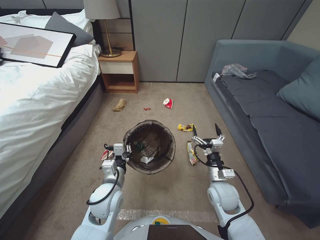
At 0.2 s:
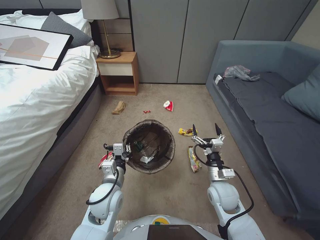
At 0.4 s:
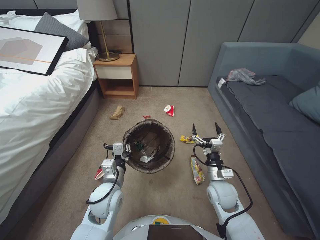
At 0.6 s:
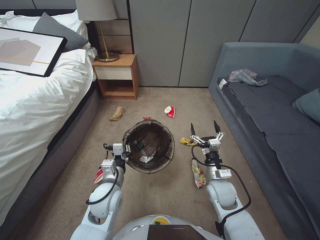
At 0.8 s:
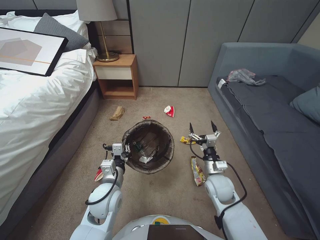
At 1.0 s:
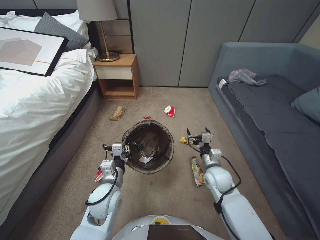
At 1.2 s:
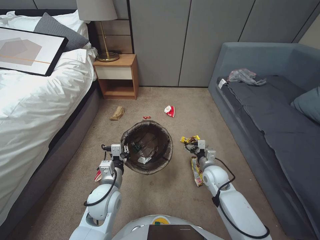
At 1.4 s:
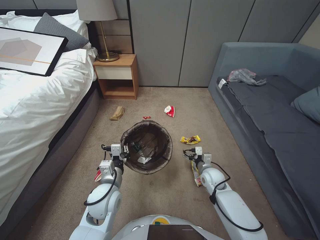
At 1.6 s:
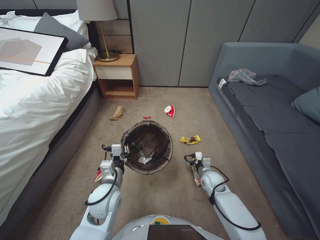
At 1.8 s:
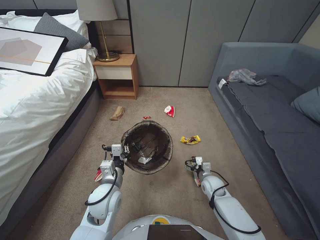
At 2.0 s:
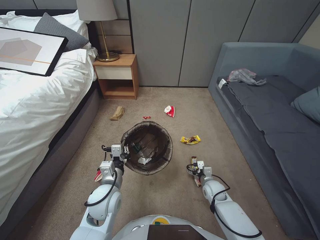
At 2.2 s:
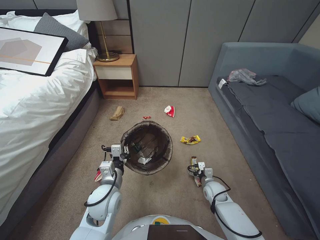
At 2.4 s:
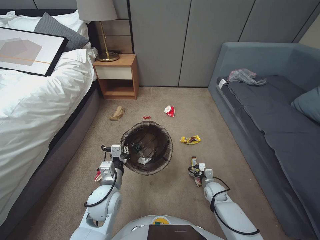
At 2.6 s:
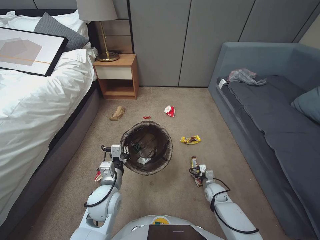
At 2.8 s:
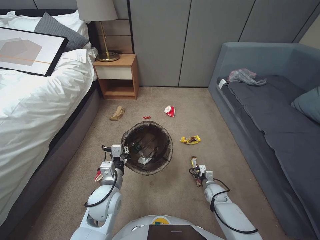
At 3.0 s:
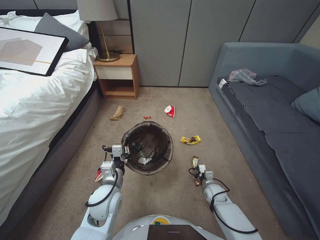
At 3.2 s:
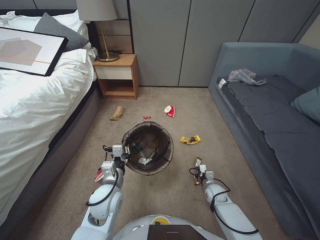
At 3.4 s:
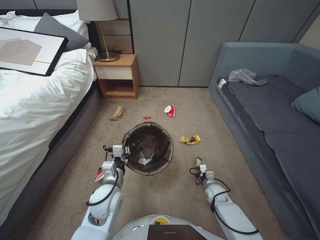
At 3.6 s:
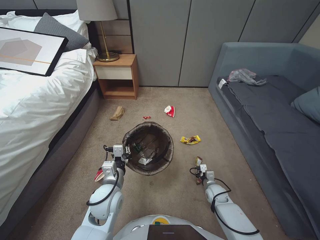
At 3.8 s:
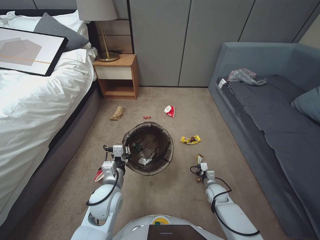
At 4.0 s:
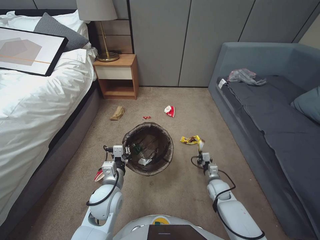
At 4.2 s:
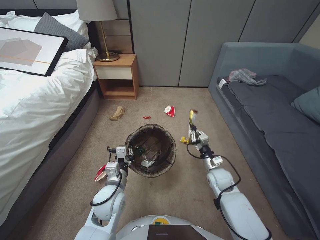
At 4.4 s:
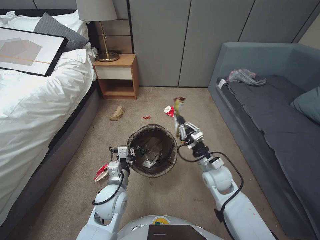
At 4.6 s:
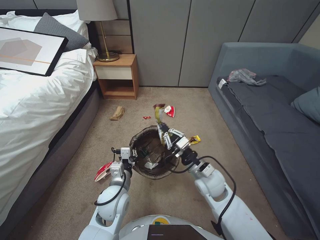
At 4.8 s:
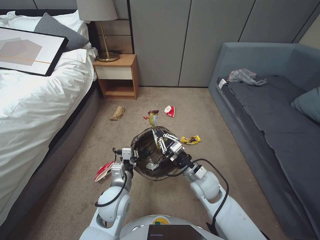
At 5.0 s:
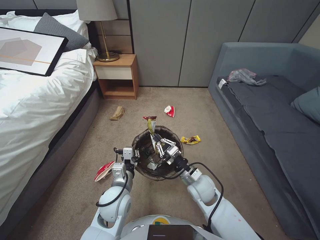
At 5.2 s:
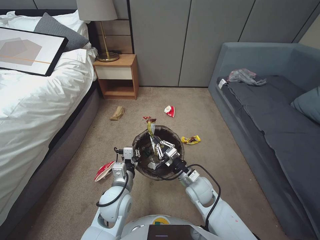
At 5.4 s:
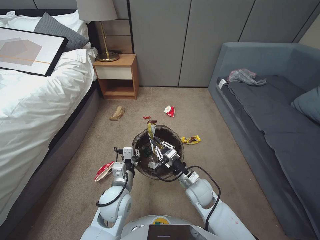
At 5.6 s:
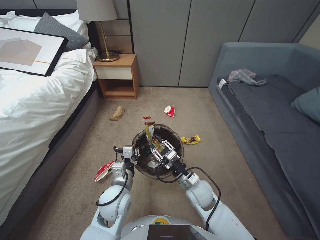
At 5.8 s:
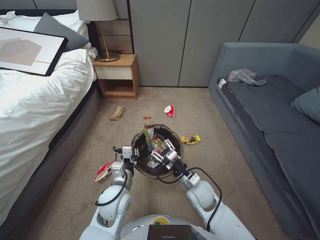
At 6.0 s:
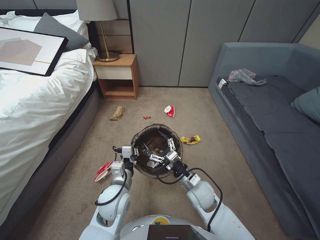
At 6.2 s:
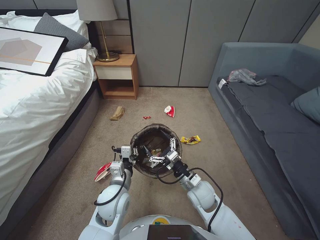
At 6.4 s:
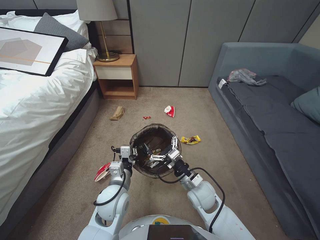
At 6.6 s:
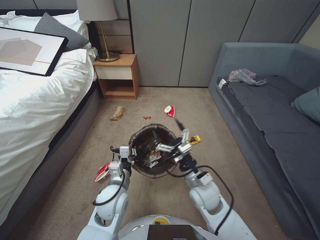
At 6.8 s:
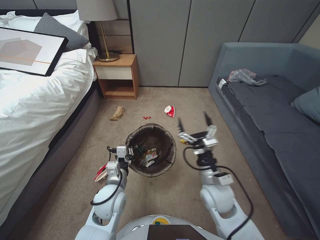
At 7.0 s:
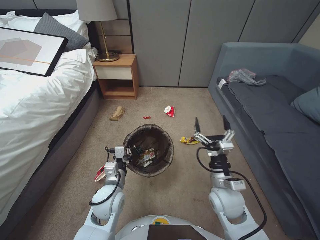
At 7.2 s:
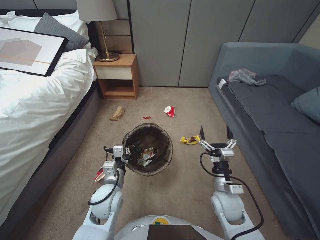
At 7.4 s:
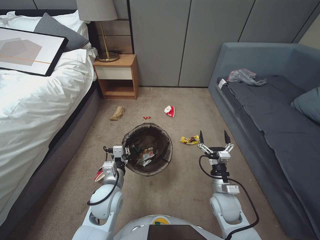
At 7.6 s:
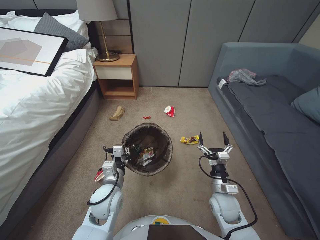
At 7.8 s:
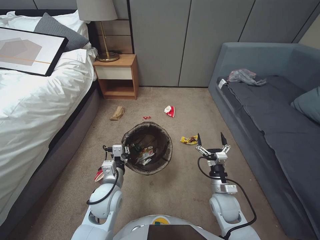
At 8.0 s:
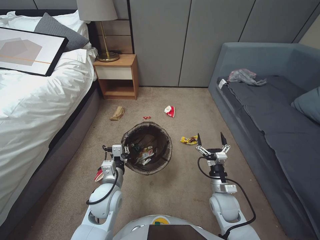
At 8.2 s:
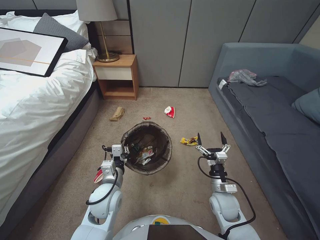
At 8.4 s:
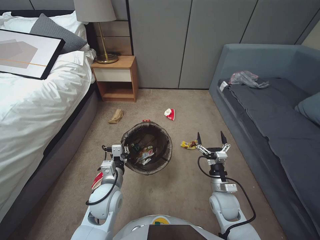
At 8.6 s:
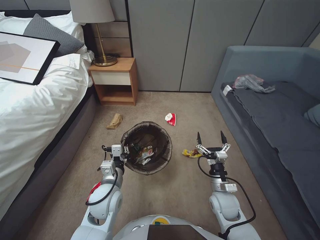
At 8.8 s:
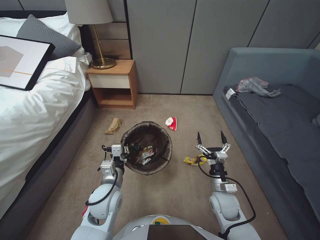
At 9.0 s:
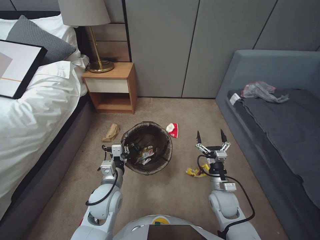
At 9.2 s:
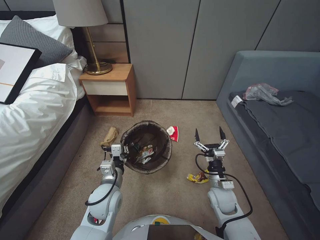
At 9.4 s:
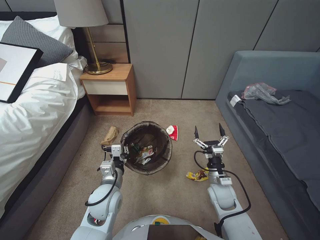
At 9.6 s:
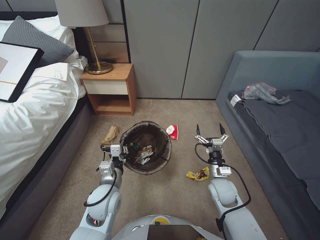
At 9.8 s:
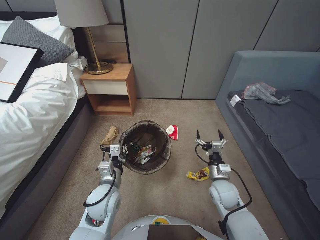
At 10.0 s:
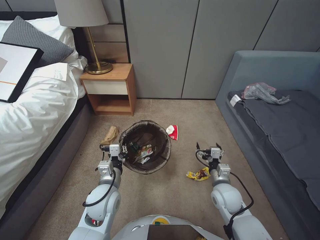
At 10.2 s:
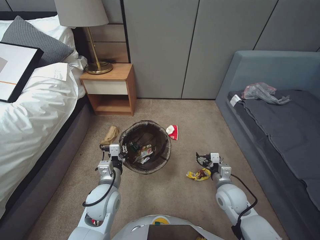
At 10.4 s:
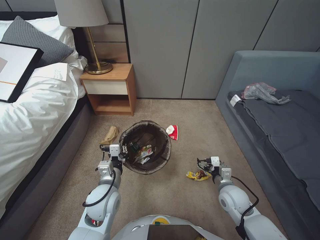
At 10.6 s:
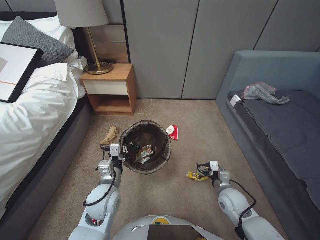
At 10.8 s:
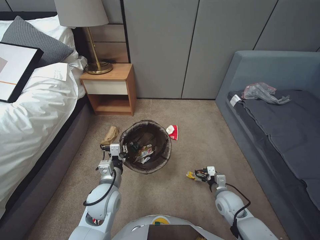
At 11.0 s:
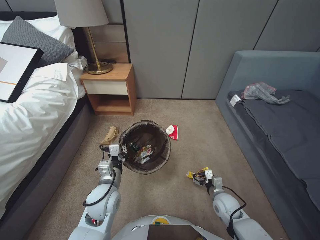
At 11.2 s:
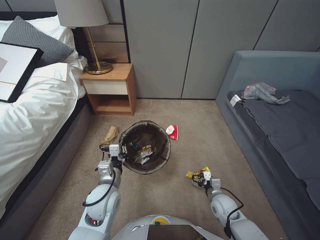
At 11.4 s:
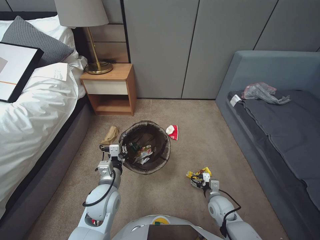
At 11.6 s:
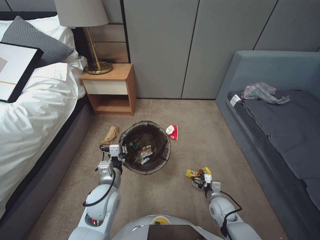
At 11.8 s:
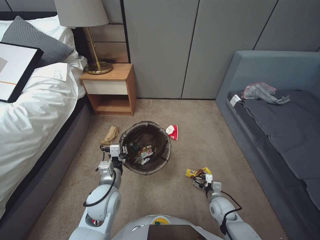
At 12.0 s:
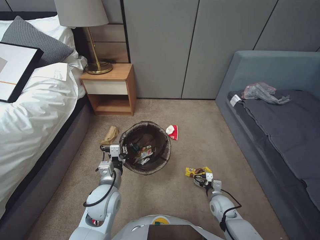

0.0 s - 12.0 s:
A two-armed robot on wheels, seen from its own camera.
Task of the whole recording: Pick up the trash bin, then pick up the garbage from the floor and place it into the trash bin.
0.0 s - 1.6 s: The right gripper heads forward, covering roughly 10 cm.
1.6 s - 3.0 s: The right gripper is displaced downward by roughly 15 cm, and closes.
3.0 s - 4.4 s: The right gripper is displaced upward by some 20 cm, and closes its fingers.
4.4 s - 6.0 s: The right gripper travels to the left and backward by about 10 cm, and opens its fingers.
6.0 s - 7.6 s: The right gripper is displaced to the right by roughly 10 cm.
10.4 s - 12.0 s: The right gripper travels downward by about 15 cm.

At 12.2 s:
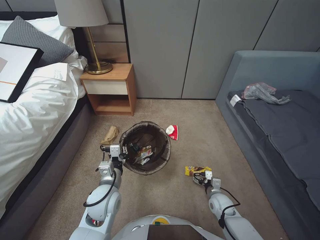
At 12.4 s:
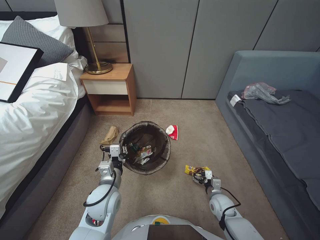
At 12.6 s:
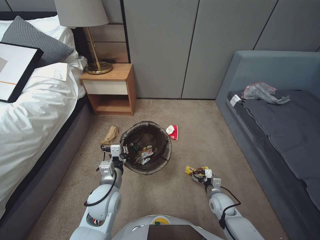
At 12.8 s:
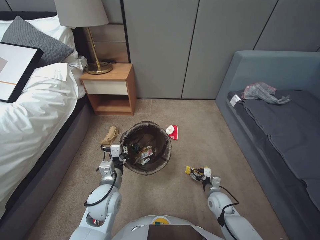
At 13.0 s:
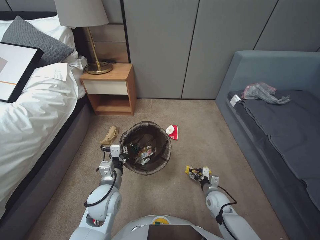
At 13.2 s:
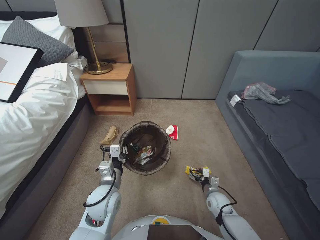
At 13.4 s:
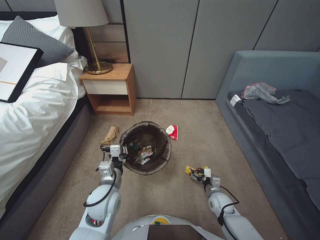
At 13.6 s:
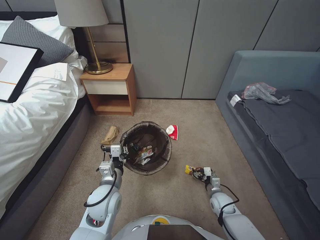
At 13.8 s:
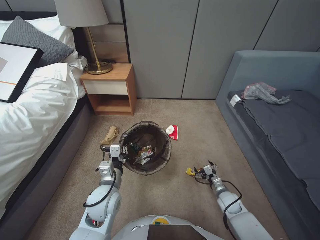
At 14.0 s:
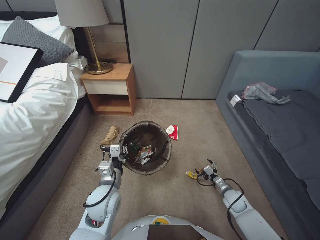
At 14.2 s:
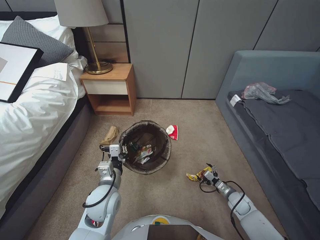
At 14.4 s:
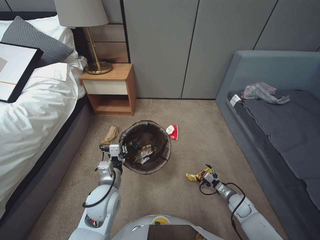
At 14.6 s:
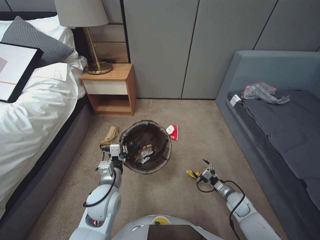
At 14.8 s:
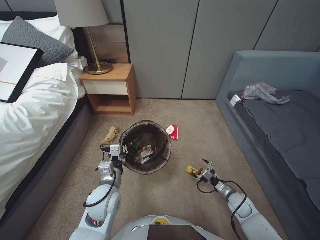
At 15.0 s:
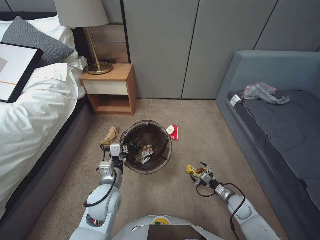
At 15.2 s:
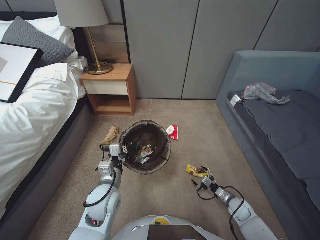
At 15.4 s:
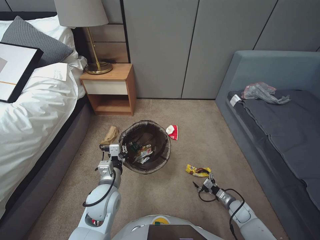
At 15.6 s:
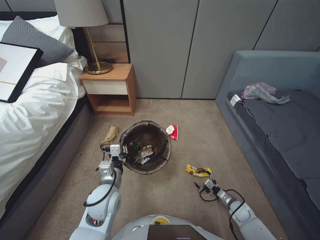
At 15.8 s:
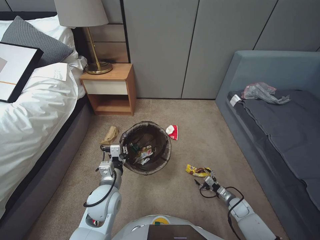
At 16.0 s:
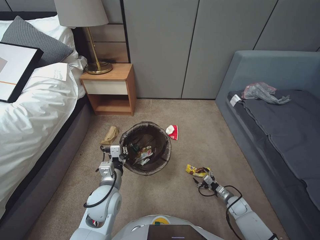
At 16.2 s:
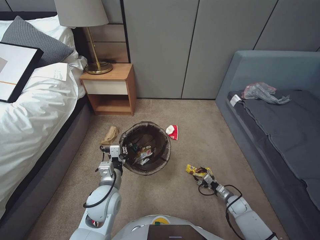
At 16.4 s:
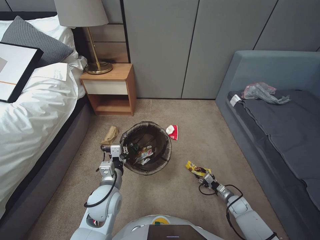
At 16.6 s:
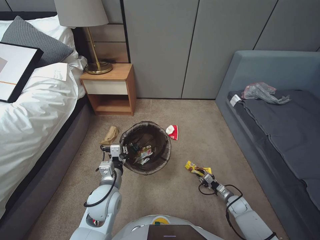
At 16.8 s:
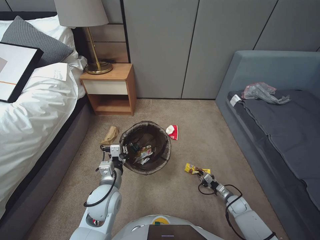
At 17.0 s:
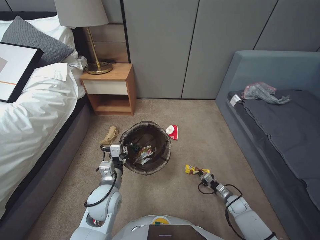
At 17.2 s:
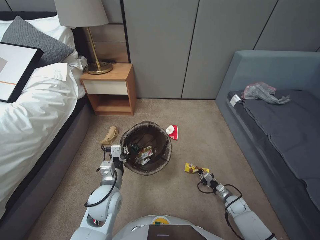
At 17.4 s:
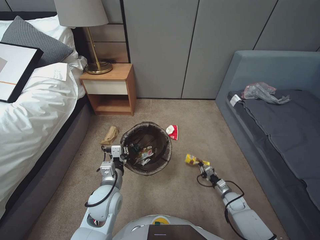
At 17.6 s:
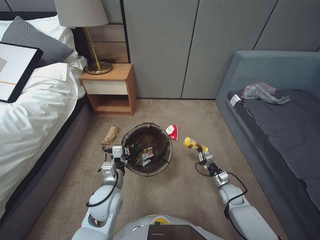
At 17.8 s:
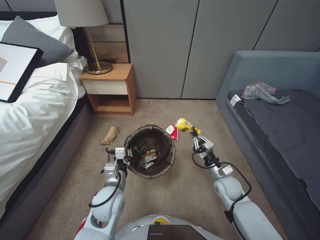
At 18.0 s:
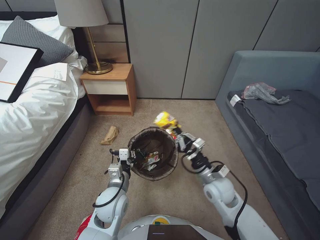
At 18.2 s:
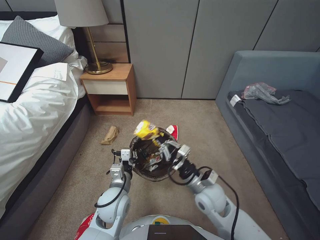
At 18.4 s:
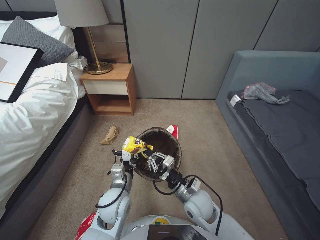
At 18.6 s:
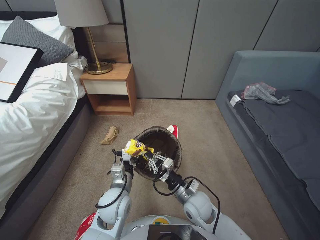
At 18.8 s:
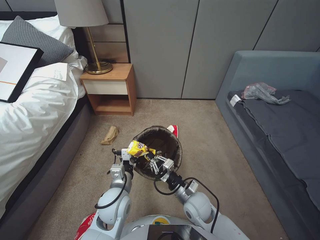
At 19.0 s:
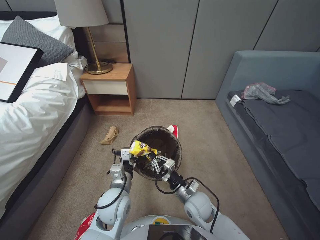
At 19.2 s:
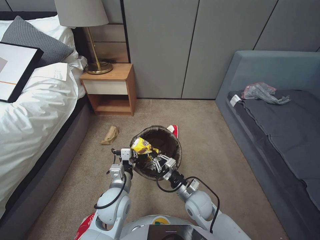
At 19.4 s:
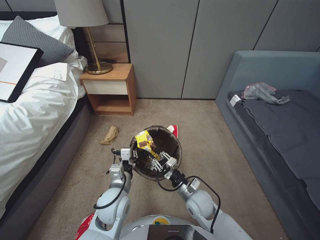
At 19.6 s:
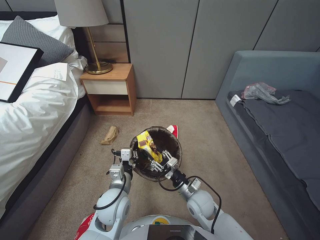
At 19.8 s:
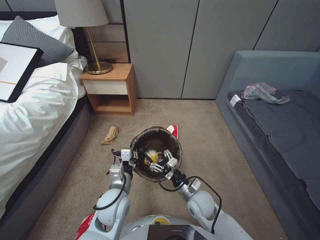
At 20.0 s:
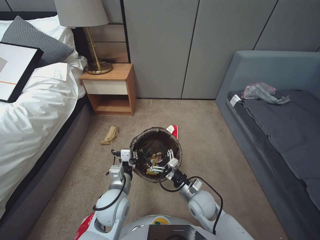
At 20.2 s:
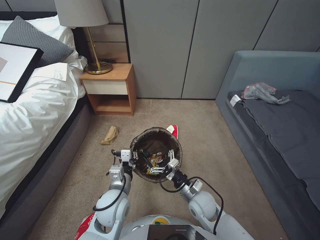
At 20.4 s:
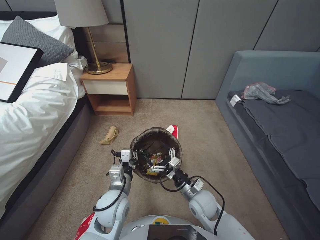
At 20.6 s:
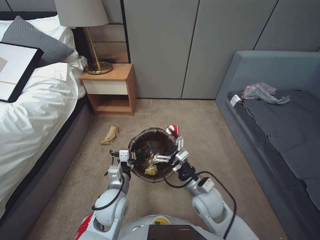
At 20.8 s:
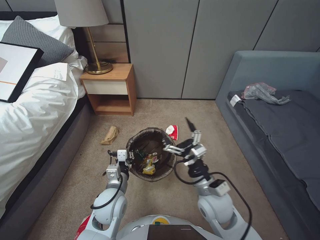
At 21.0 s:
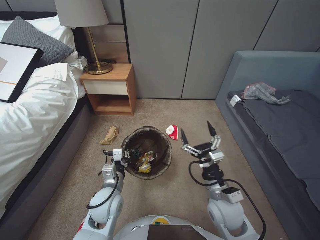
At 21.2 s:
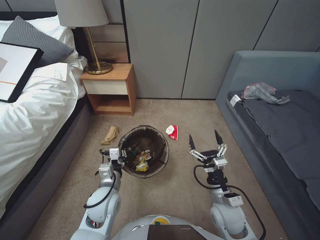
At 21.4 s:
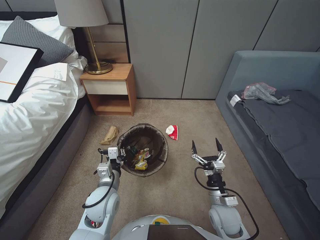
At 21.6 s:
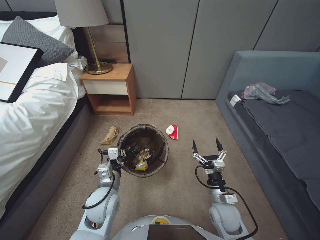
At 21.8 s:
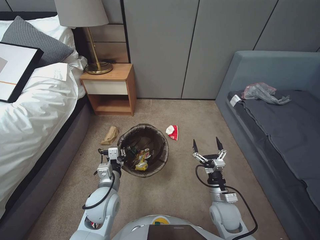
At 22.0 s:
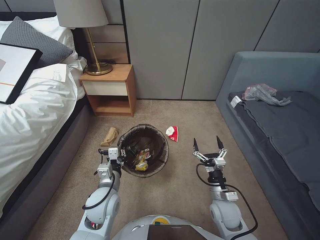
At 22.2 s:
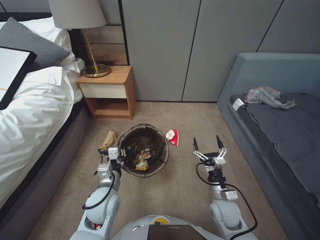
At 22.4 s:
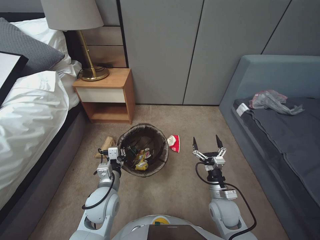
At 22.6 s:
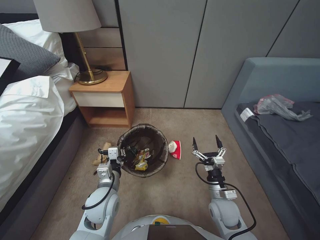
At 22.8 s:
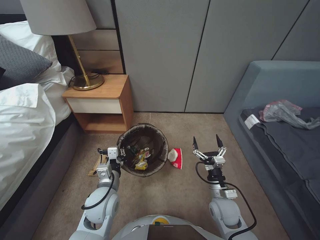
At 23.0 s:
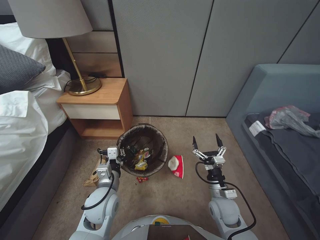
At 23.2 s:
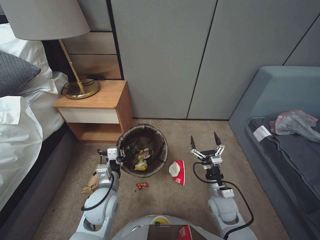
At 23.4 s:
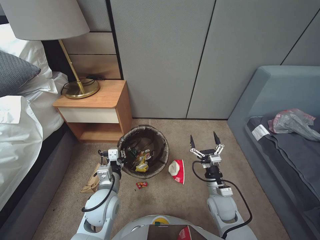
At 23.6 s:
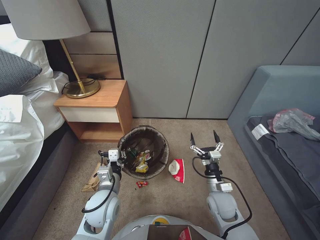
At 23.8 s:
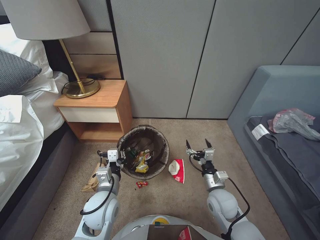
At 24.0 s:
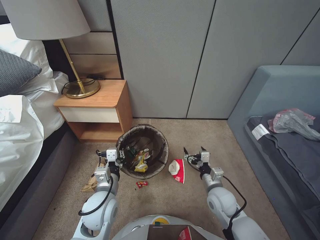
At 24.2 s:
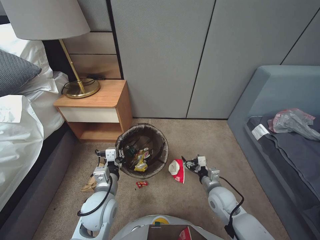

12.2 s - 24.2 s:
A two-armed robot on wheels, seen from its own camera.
Task of the whole recording: Pick up the trash bin, then pick up the garbage from the floor and place it into the trash bin.
13.8 s - 15.2 s: The right gripper travels to the right by some 5 cm.
15.2 s - 16.6 s: The right gripper goes some 5 cm downward, and closes.
16.6 s - 18.2 s: The right gripper goes approximately 35 cm upward and to the left, and closes its fingers.
18.2 s - 19.8 s: The right gripper is displaced downward by about 10 cm, and opens its fingers.
19.8 s - 21.2 s: The right gripper moves to the right and upward, about 10 cm, and opens its fingers.
21.2 s - 22.6 s: The right gripper is displaced downward by roughly 5 cm.
